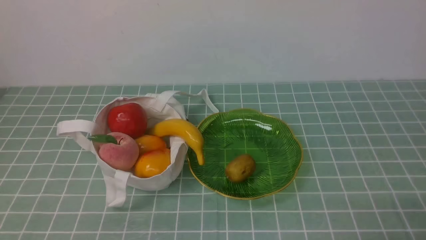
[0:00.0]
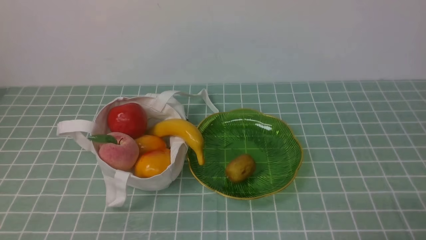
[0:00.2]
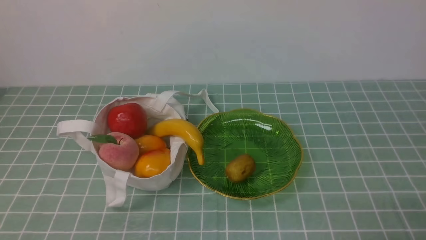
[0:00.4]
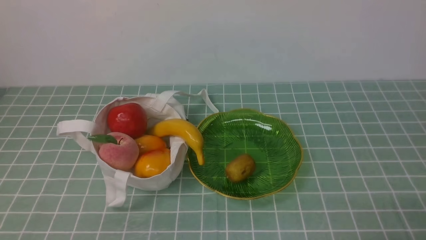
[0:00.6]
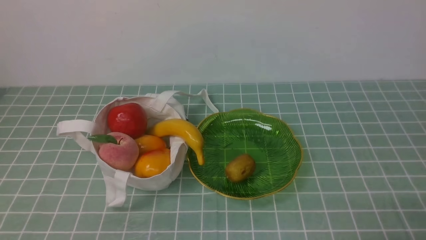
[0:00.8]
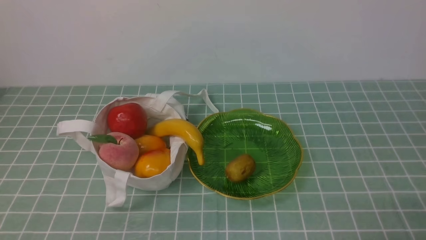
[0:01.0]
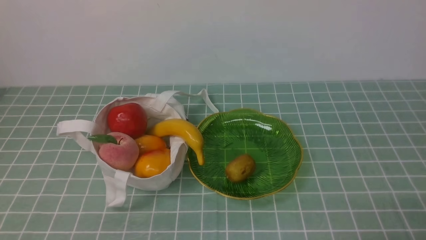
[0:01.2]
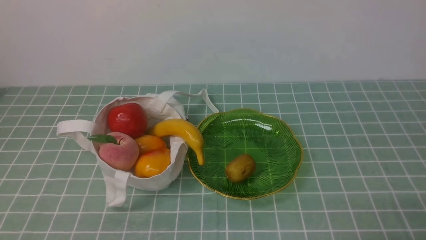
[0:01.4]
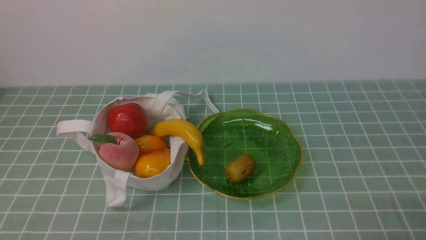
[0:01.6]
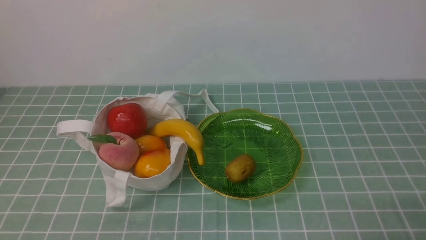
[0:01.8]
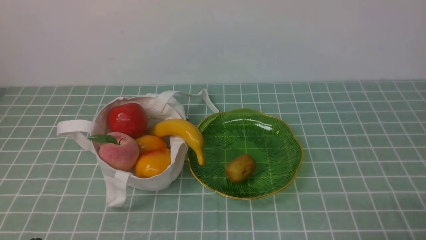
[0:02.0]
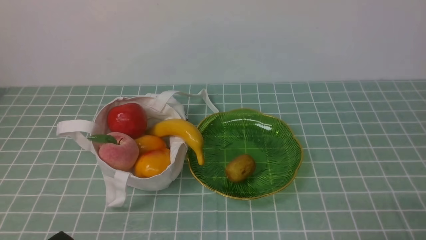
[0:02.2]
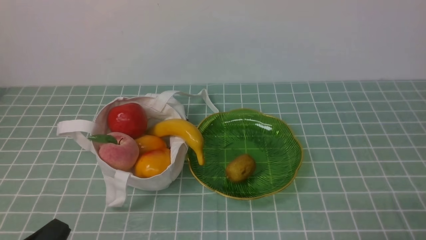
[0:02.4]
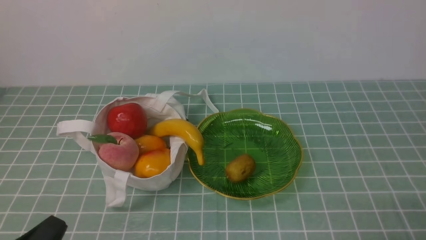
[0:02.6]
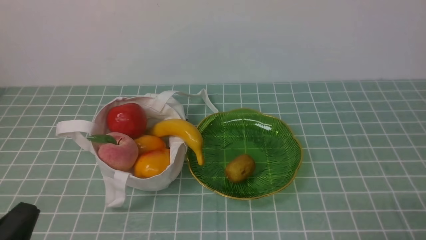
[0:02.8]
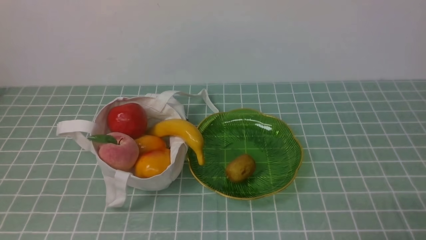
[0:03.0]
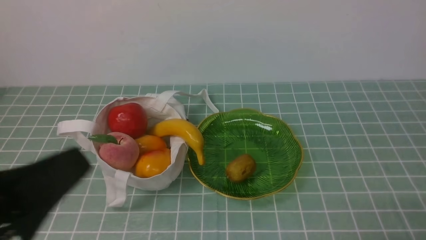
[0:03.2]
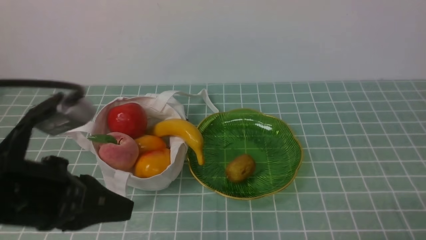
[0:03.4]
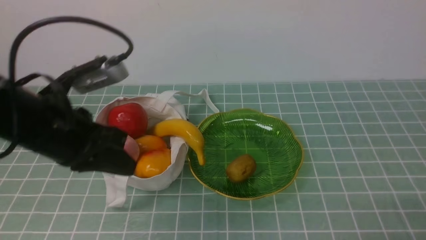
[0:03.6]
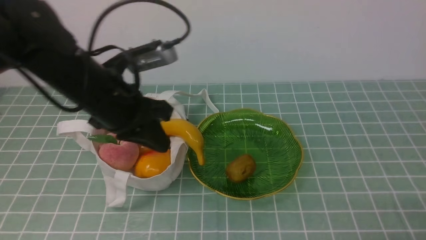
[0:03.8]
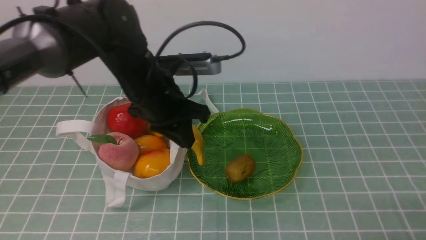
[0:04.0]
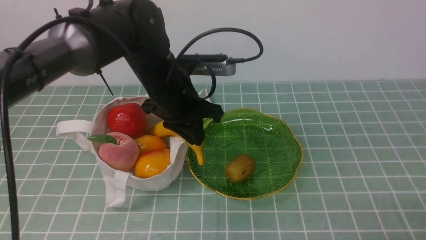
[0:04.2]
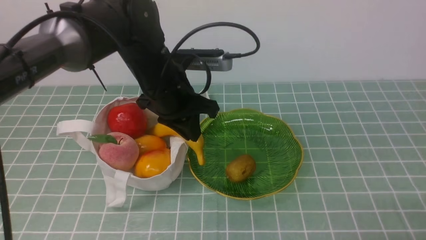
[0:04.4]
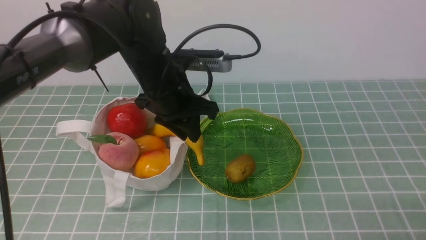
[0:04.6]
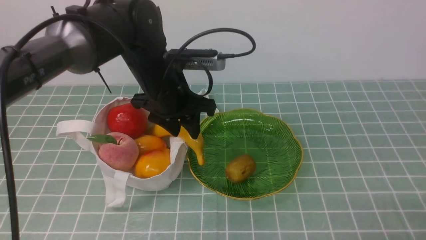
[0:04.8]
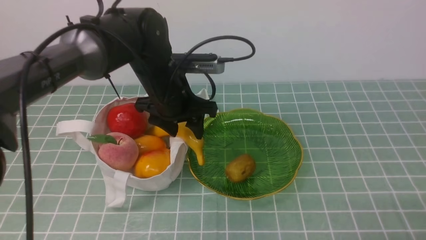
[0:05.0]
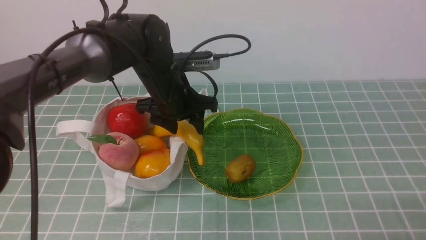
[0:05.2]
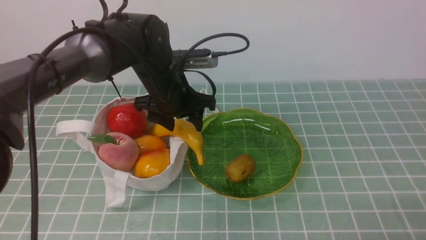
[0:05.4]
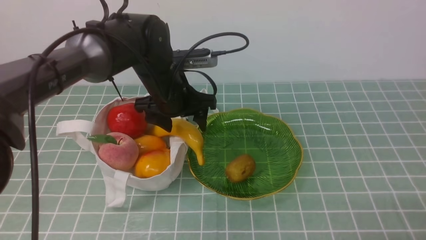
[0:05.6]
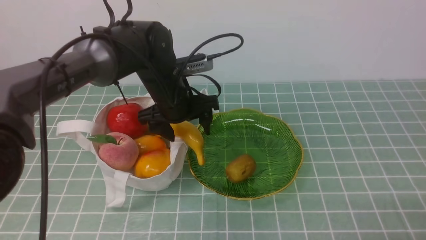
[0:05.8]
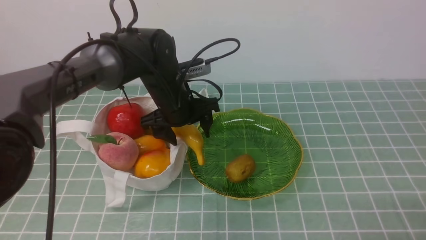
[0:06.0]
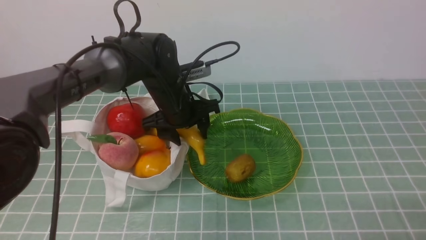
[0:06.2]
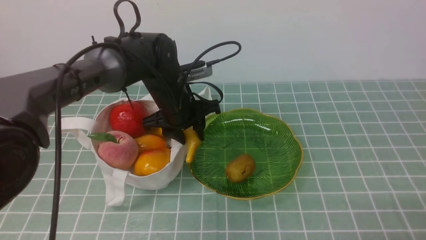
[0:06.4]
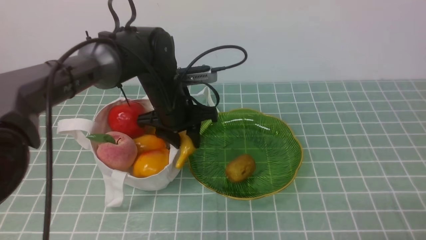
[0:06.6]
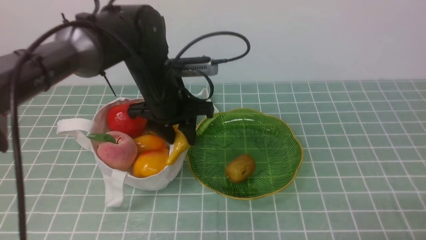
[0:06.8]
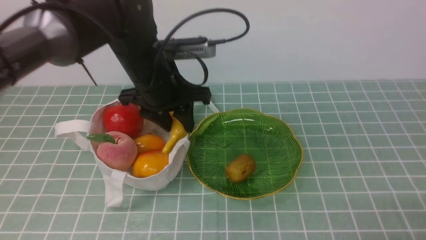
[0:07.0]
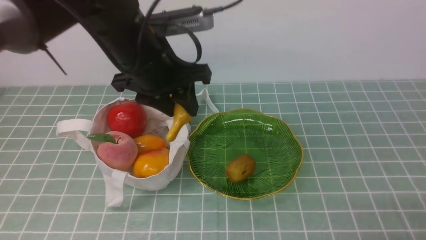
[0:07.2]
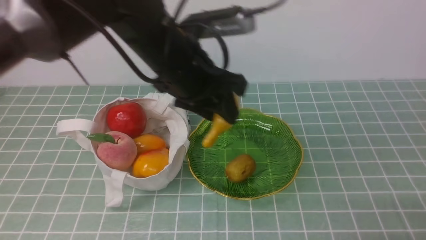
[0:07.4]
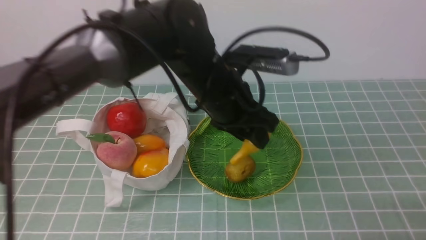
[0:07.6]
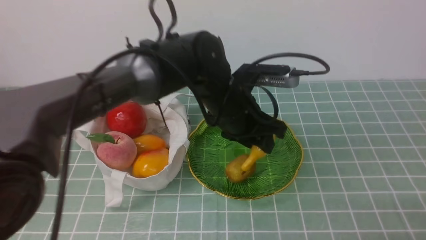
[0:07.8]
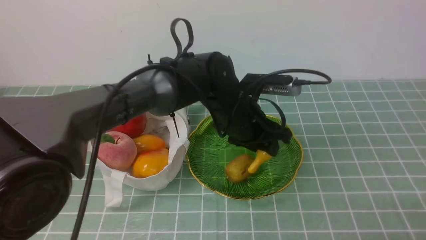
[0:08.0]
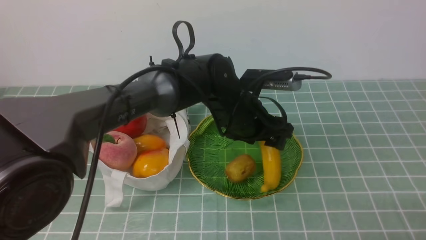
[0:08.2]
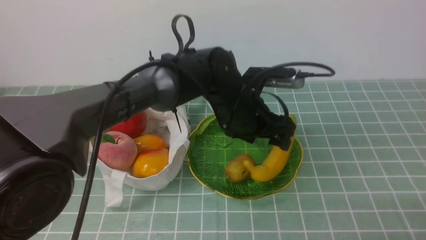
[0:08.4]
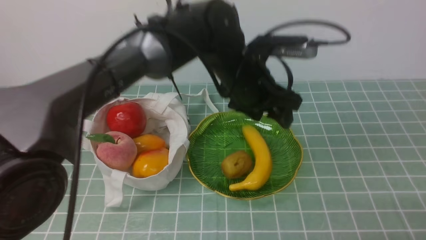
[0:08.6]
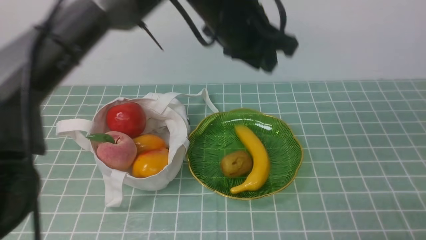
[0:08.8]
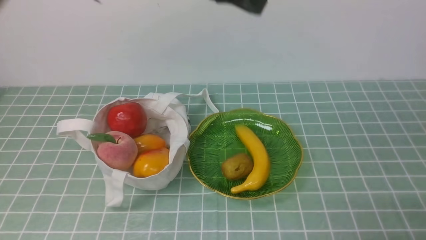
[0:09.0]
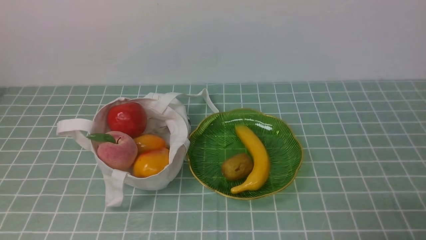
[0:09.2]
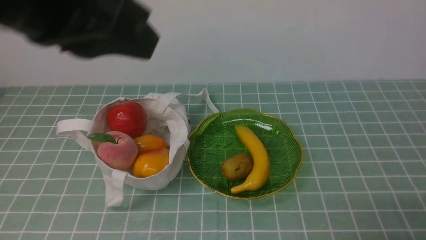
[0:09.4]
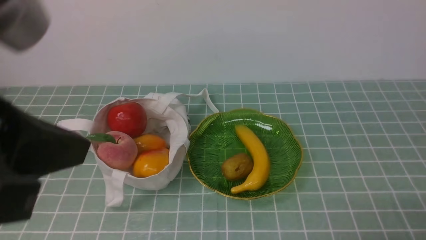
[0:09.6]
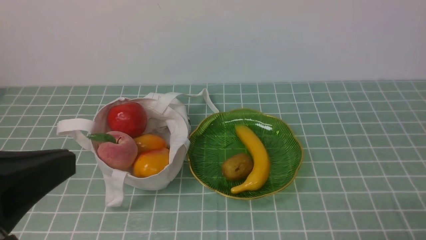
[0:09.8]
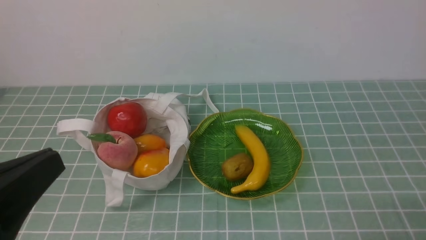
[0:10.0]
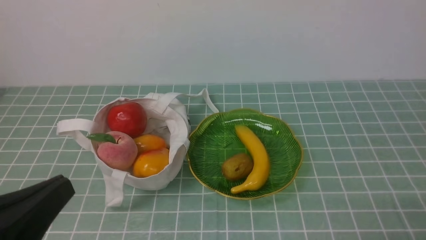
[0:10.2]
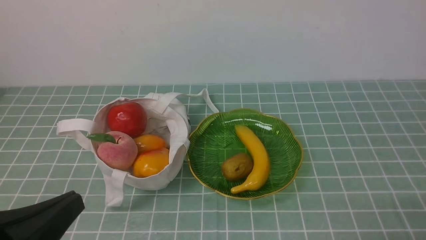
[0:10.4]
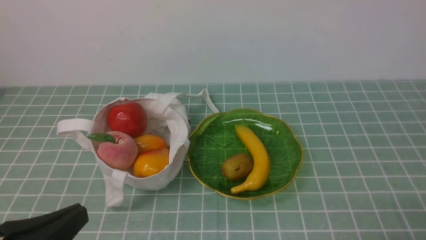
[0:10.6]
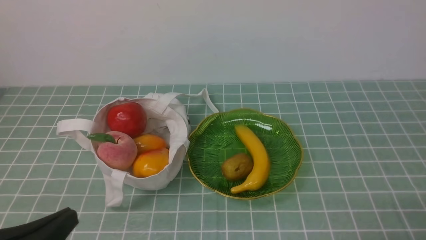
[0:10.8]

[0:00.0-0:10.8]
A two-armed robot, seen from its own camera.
Step, 0:00.0 to 0:06.8: use the left arm to grab a banana from the bag.
Step, 0:07.0 to 0:08.4: use the left arm to put the banana into the empty plate on the right.
0:00.0 to 0:01.6: Both grippers stay put.
0:03.0 to 0:04.6: The left gripper heads forward and to the right, covering some 35 cm.
0:04.6 to 0:06.2: The left gripper travels downward by roughly 5 cm, and opens.
0:06.2 to 0:07.8: The left gripper heads to the right and backward, covering some 10 cm, and goes upward and returns, approximately 10 cm each way.
0:07.8 to 0:09.2: The left gripper is displaced upward, backward and to the left by about 30 cm, and closes up.
0:09.2 to 0:10.8: The left gripper is displaced downward, backward and to the left by approximately 35 cm.

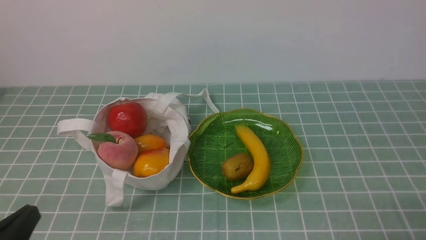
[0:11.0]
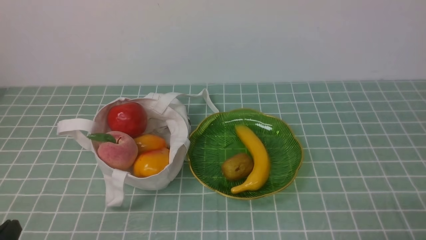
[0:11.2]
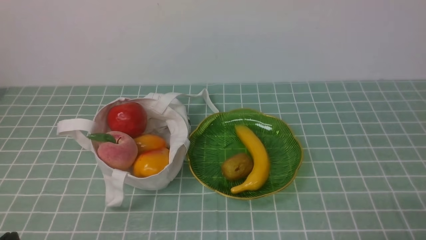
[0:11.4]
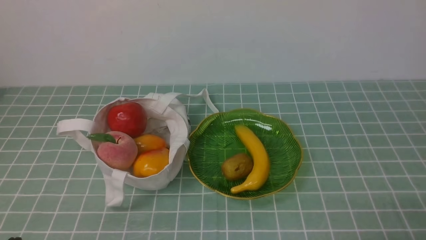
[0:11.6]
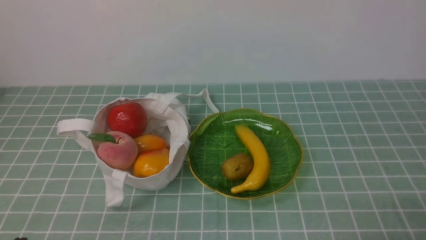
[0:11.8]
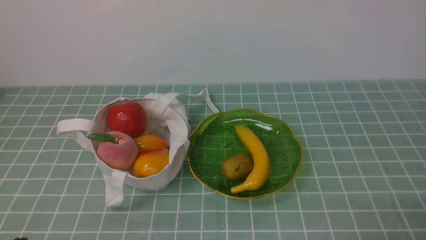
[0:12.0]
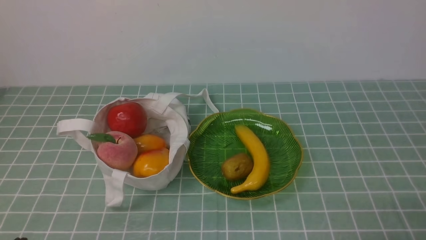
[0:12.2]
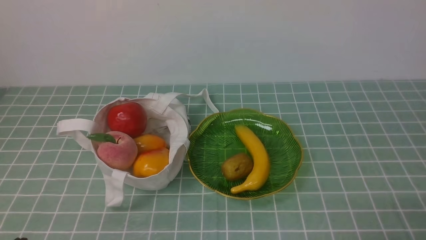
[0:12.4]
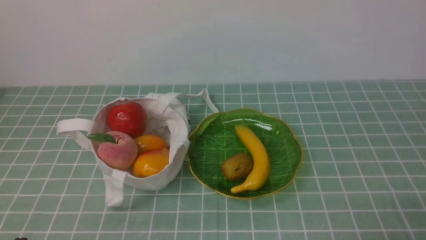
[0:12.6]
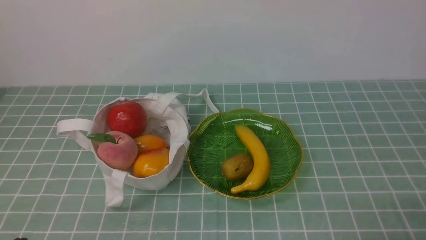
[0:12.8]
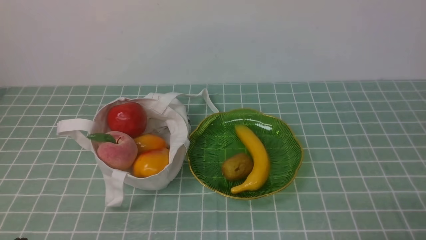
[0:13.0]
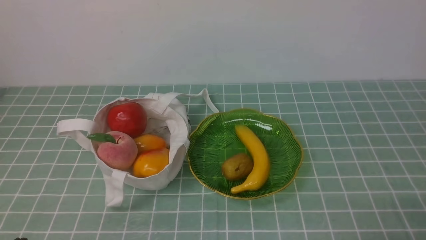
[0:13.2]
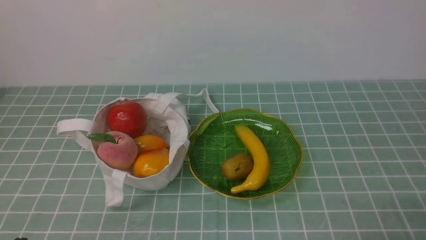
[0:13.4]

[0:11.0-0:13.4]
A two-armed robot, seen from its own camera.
0:11.0 to 0:12.2: The grippers make only small movements.
0:12.2 to 0:13.4: Neither gripper changes place.
